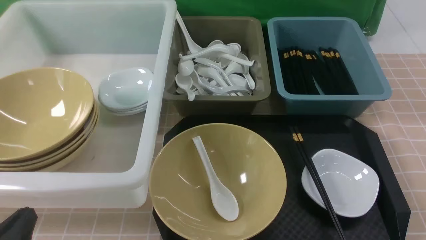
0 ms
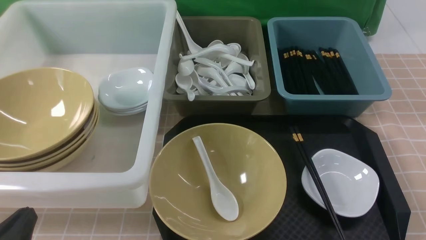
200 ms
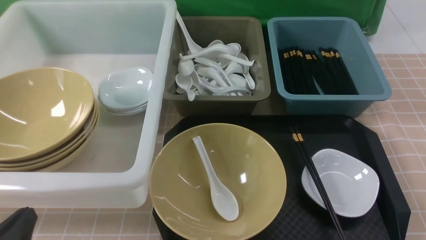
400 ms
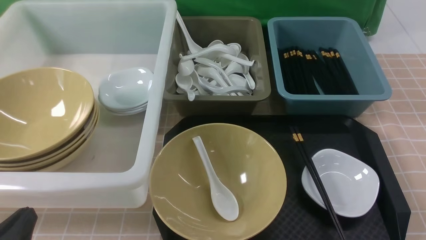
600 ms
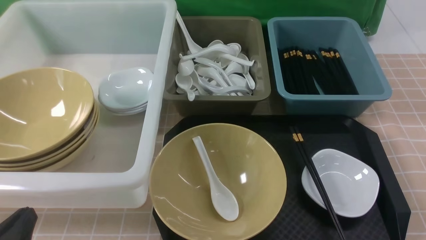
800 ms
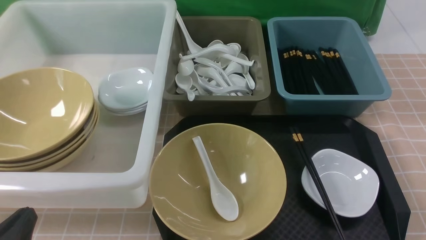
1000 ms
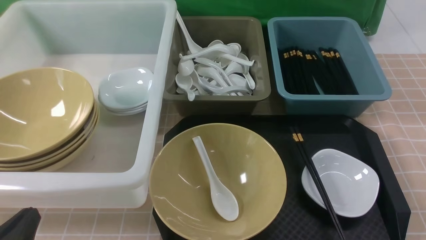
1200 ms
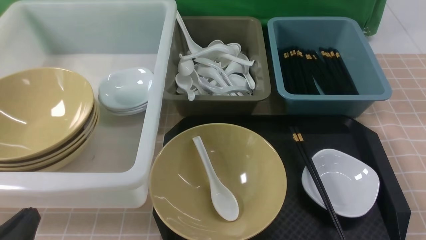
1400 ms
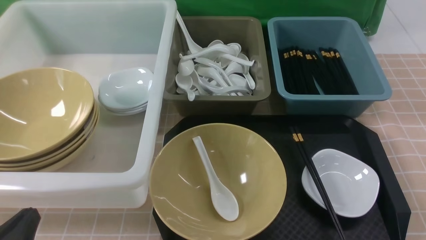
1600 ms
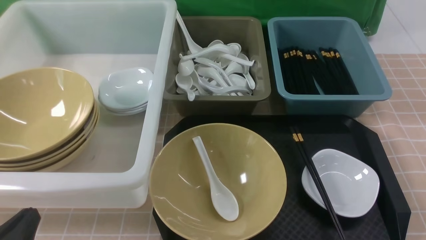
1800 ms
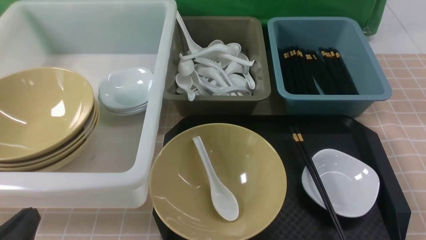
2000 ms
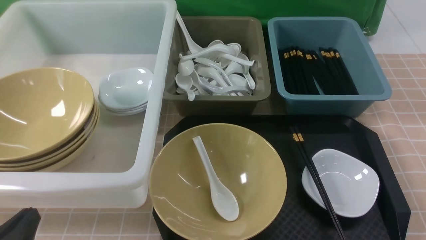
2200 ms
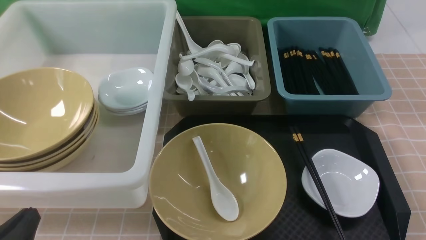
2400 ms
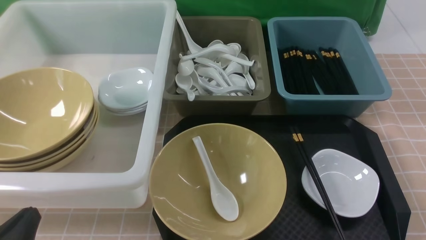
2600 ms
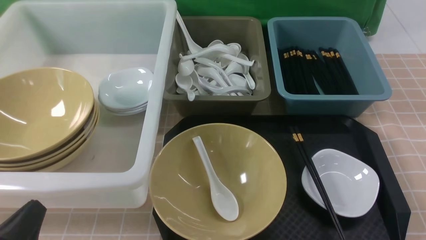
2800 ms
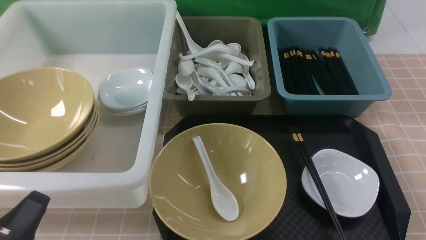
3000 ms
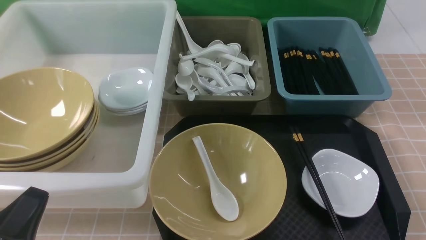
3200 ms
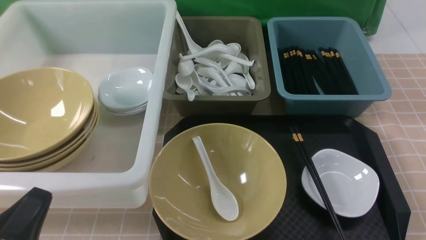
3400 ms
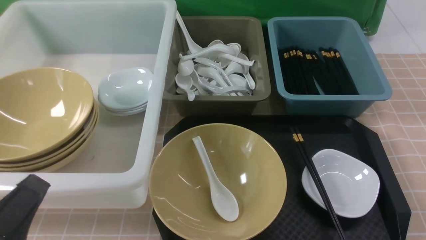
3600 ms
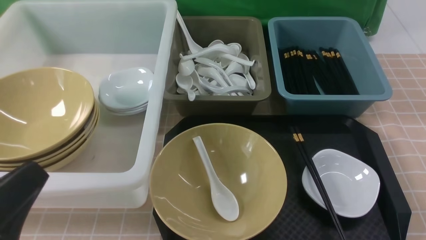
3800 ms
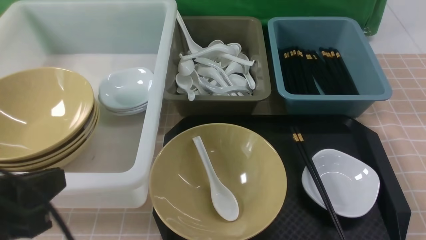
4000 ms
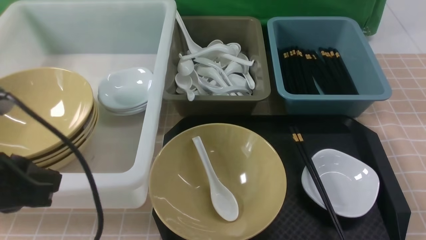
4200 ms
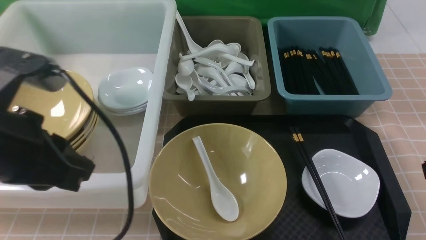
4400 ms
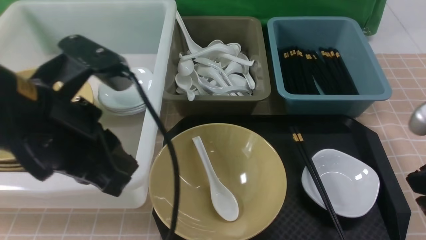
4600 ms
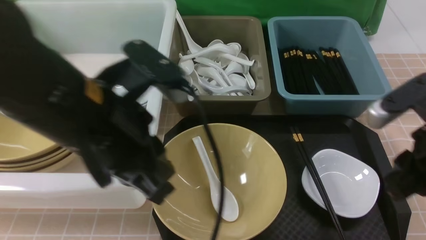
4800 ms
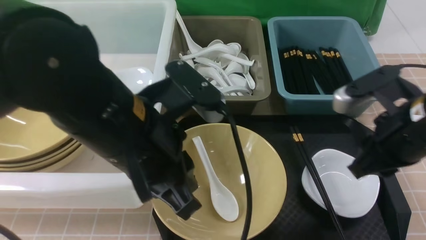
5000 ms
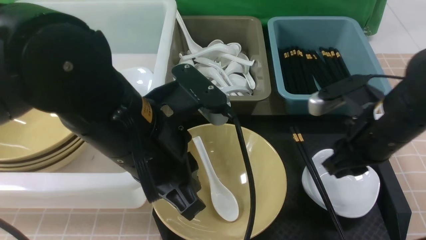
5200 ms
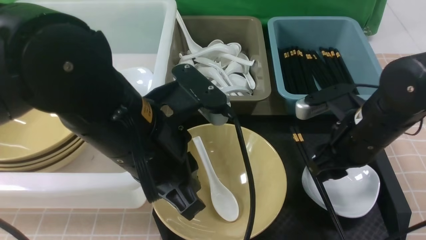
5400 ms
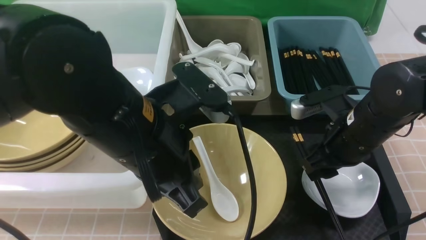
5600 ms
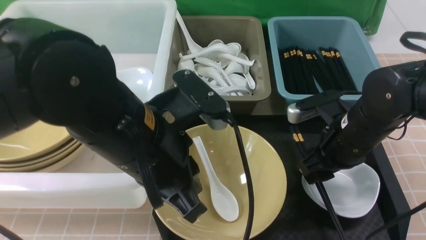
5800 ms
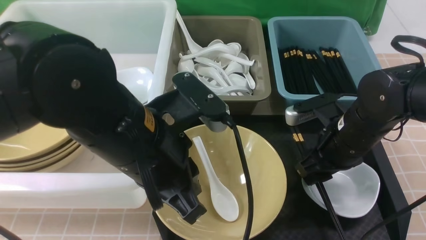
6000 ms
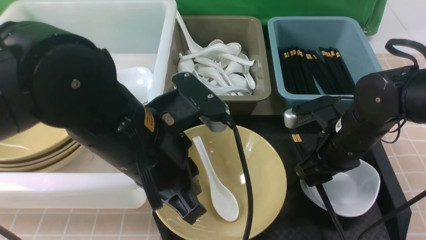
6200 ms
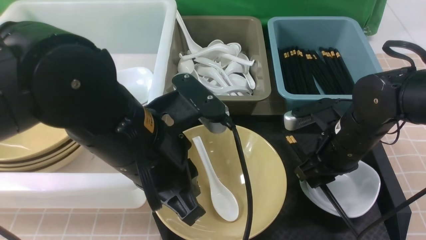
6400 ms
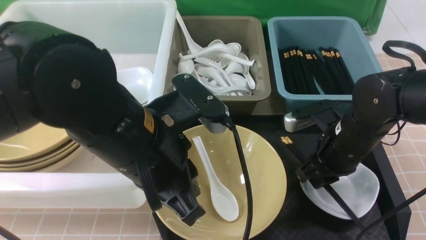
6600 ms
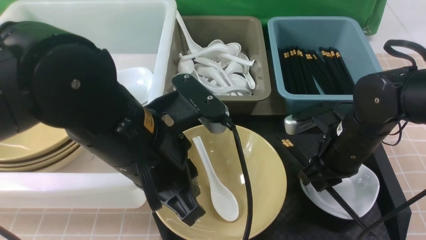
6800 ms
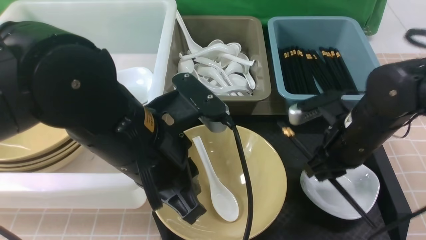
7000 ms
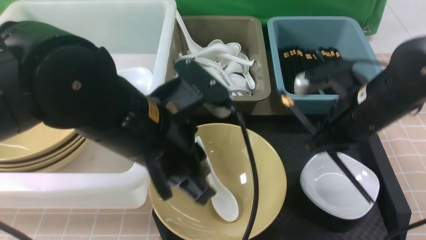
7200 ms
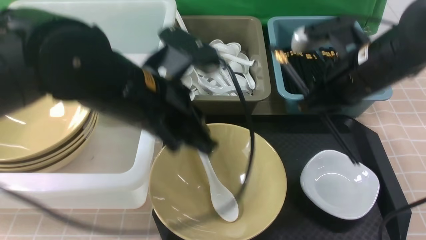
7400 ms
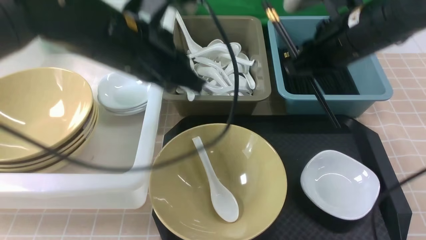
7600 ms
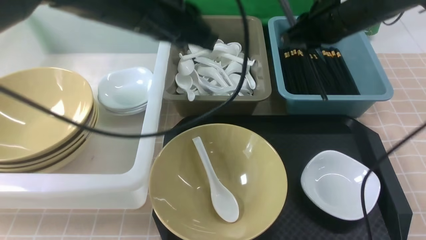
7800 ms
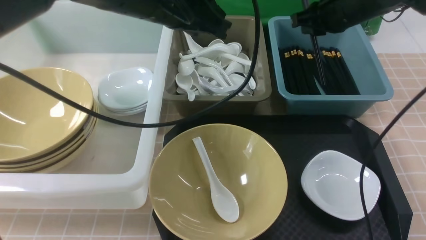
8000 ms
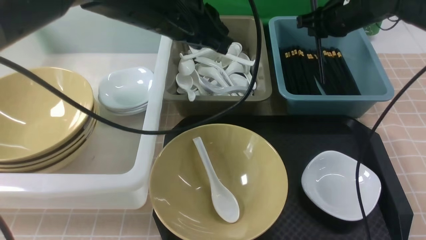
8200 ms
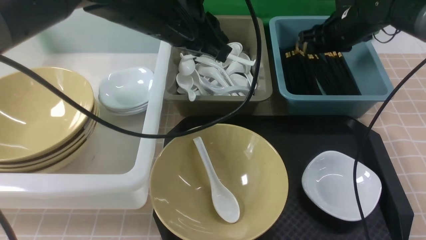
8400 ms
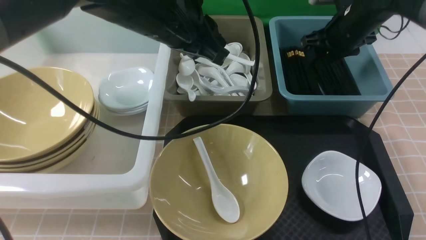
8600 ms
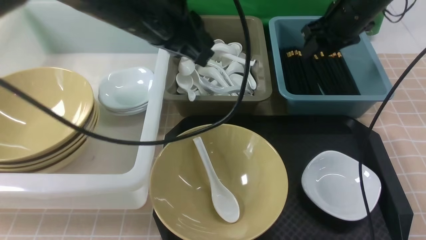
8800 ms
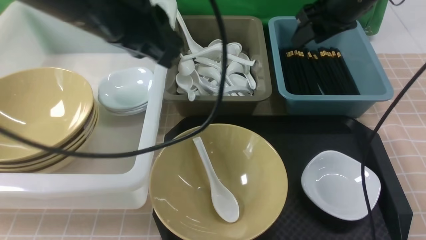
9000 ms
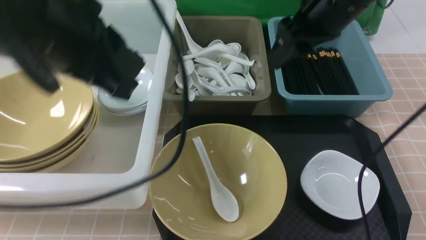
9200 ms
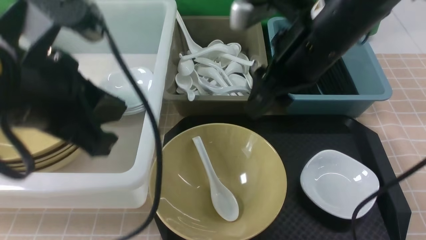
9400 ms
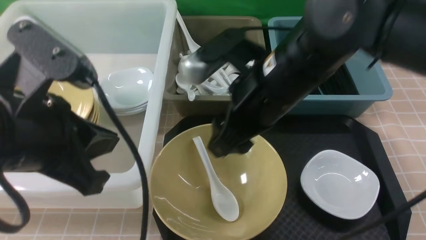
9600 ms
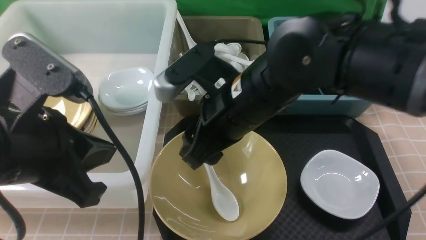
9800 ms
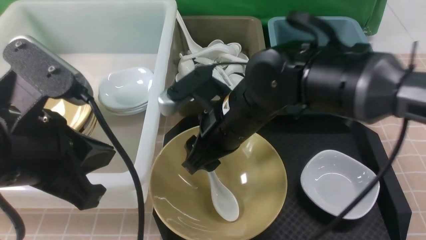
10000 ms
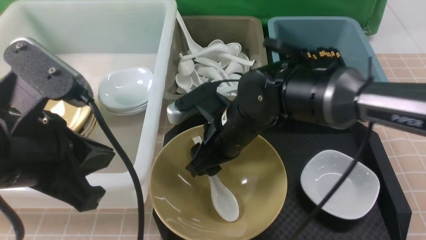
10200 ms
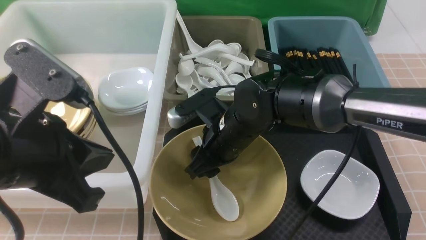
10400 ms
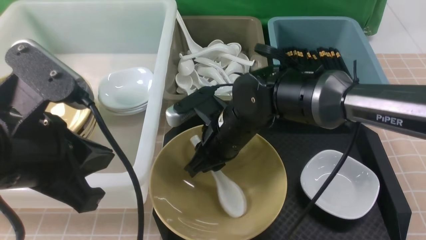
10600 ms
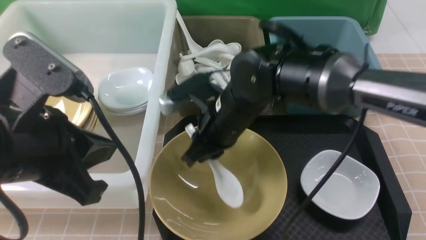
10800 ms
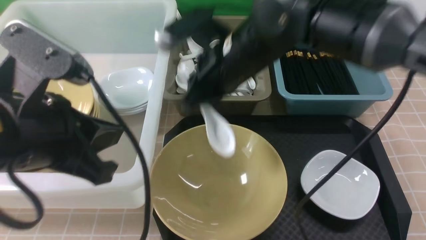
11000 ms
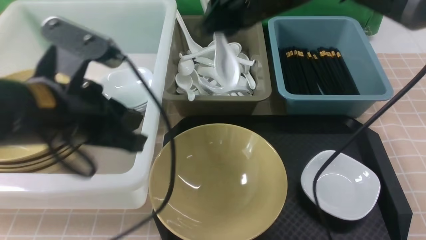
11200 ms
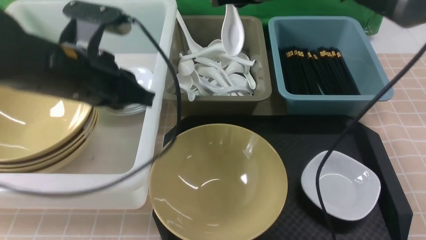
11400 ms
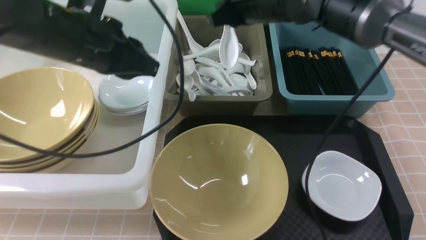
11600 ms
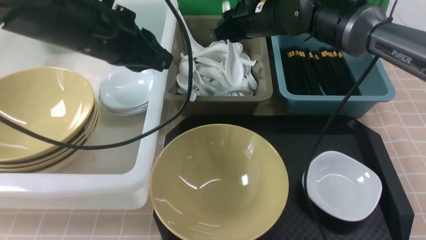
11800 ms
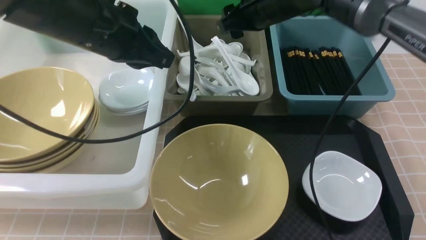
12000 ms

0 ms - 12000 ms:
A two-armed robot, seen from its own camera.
Task of the whole recording: on brown table put chopsticks spoon bowls plates into blue grey white boxes.
Step, 0 ms - 7000 ms: use the right arm to grab the chopsticks.
Step, 7200 ms - 8200 ms: use the right arm to put the chopsticks into the small storage box on the right.
Step, 8600 ms - 10600 ms: use the right arm to grab the soup spoon in the middle.
0 ms - 1600 ms: The two grippers keep their place.
3000 ms - 4400 ms: The left gripper goes some 20 cm upward and forward.
4400 ms - 6000 ms: The right gripper goes about 20 cm forward, downward and to the left, and opens; the left gripper shifts about 10 cm to the right.
6000 ms - 7600 ms: The right gripper heads upward and forward, covering some 15 cm, and closes. The left gripper is displaced forward by some 10 cm.
7600 ms - 9000 ms: The left gripper is displaced upward by some 5 cm, while the right gripper goes some 5 cm forward, and opens up.
9000 ms - 10400 ms: The left gripper heads backward, downward and to the left, covering roughly 15 cm, while the right gripper goes about 25 cm to the left, downward and backward.
10400 ms - 12000 ms: The right gripper moves forward, upward and to the right, approximately 20 cm, and closes, then reopens; the left gripper heads forward, covering roughly 15 cm.

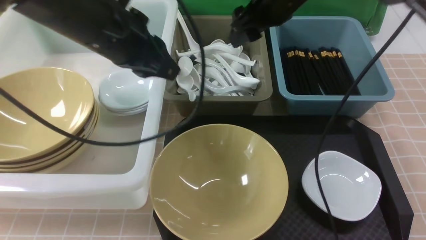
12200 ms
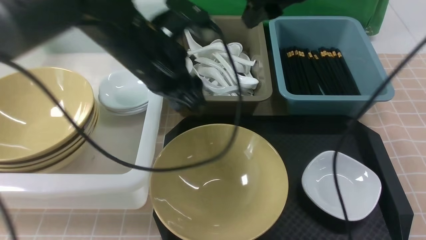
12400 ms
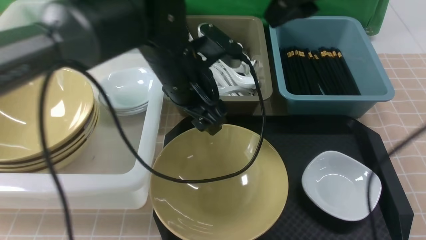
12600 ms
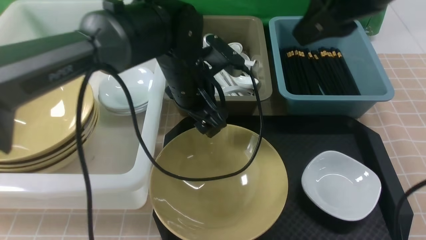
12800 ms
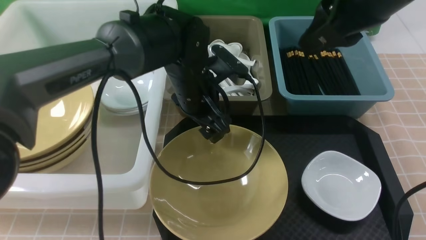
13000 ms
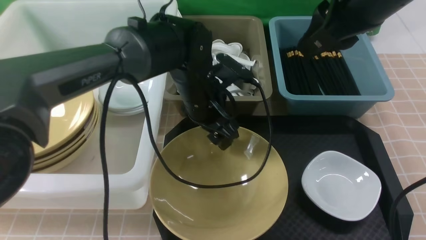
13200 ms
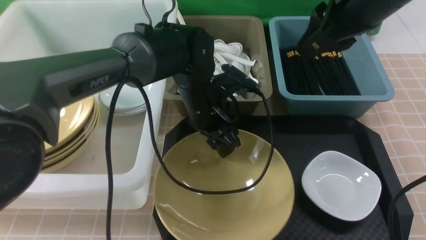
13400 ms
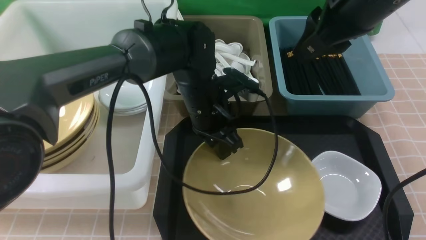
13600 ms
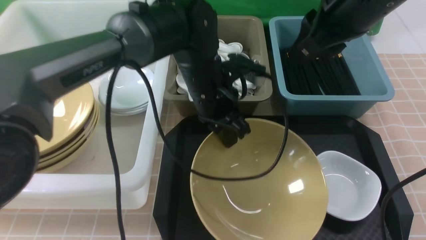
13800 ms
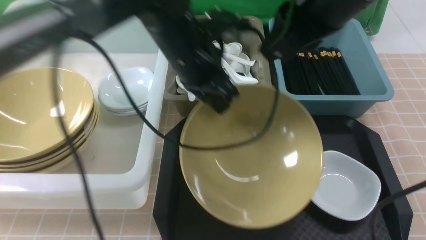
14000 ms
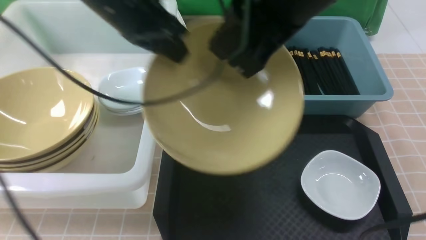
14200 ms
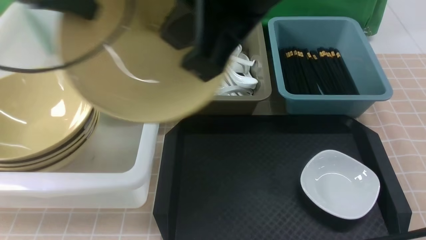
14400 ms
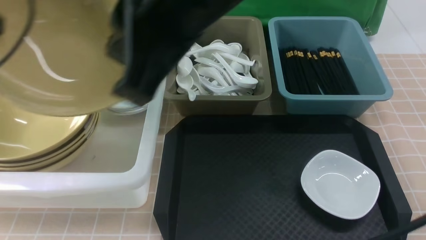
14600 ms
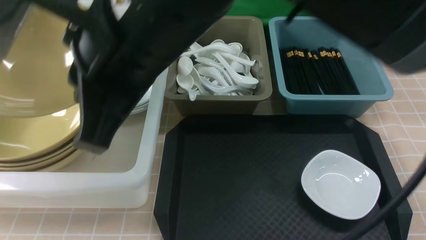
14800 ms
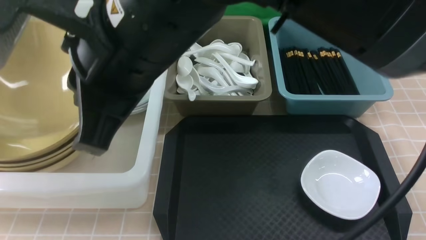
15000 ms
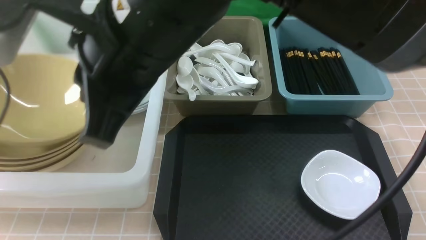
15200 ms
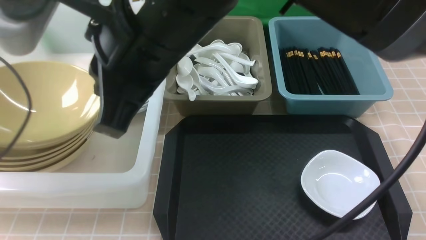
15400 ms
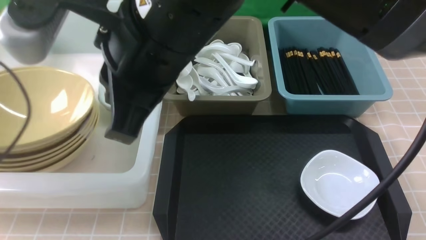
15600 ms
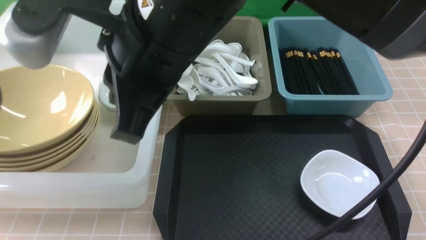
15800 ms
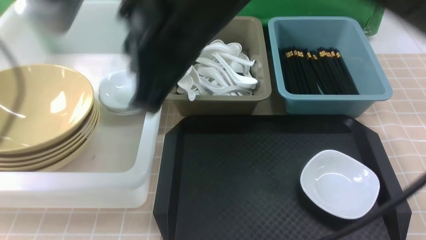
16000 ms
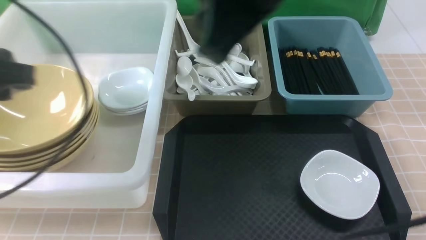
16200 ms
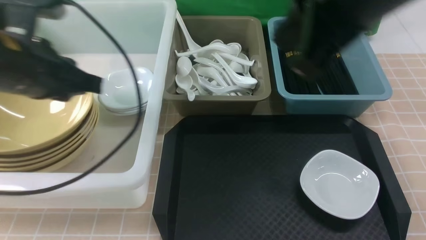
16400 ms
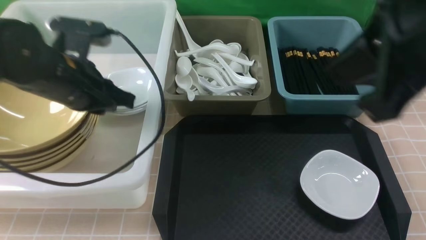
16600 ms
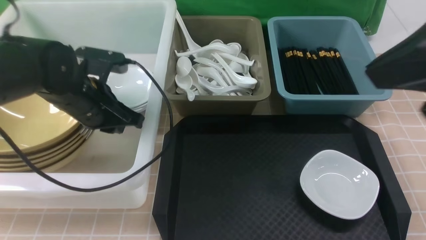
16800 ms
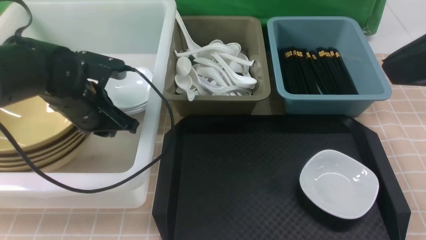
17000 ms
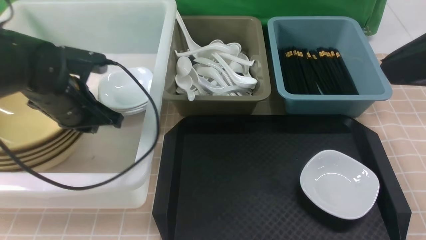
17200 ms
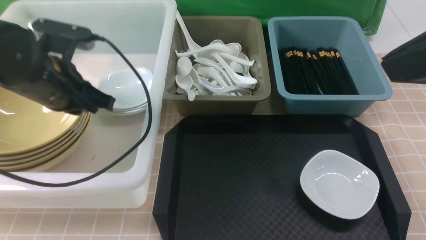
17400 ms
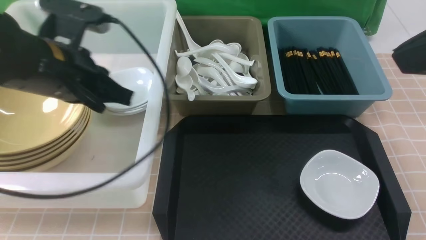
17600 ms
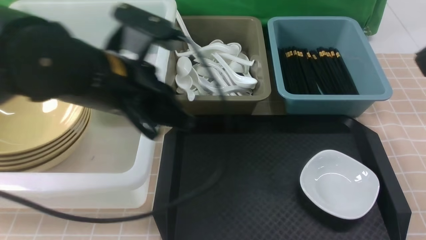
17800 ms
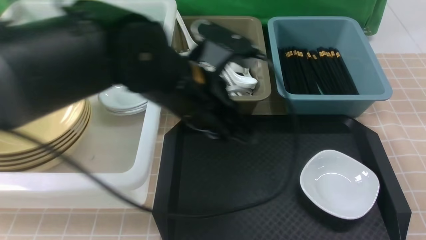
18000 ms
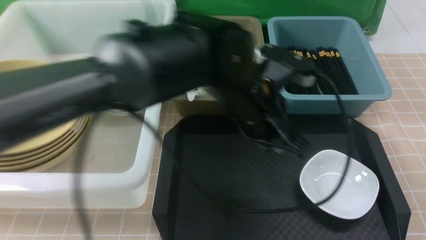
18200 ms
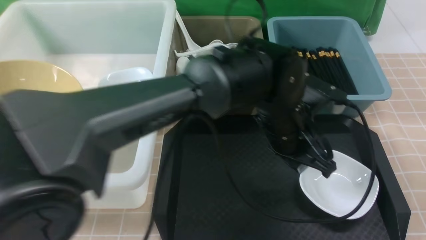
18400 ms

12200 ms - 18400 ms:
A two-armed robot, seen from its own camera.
Task of the whole recording: on brown table put chopsticks spoon bowls plates into blue grey white boxes.
Step, 12200 ms - 13600 ms: use the left arm to grab the yellow noodle bowl on the left.
Step, 14000 ms - 16000 ms: use the left arm to put the noodle bowl into the large storage box on the left.
12200 ms - 13800 ms: The left gripper is displaced to the right and downward by roughly 10 cm, and opens and closes again. The right gripper goes roughly 15 cm backward, and closes.
13800 ms - 15400 ms: The right gripper heads to the left and backward, covering roughly 20 cm, and closes. Meanwhile the left gripper goes roughly 35 cm to the left, and opens up.
15400 ms - 16800 ms: Both grippers travel together to the right, approximately 20 cm. The left gripper closes its fingers.
16800 ms - 18400 ms: The left gripper is displaced to the right by approximately 30 cm. The right gripper heads to the right and backward, covering approximately 10 cm.
